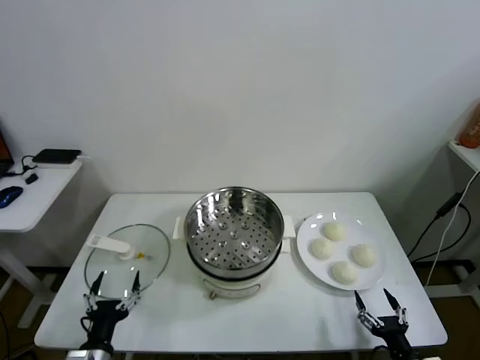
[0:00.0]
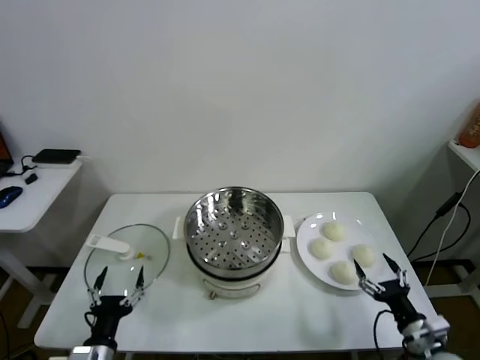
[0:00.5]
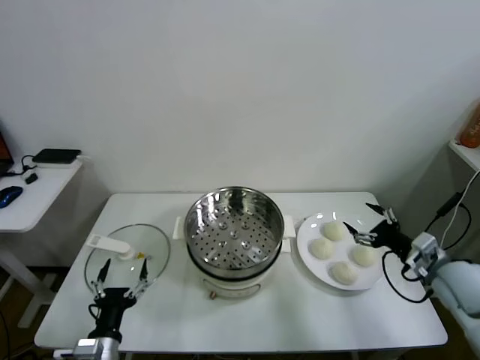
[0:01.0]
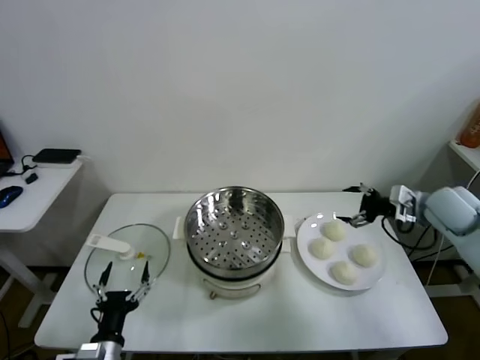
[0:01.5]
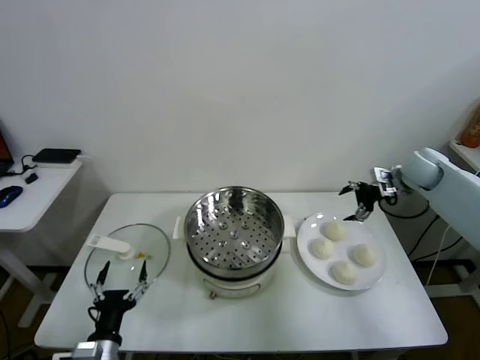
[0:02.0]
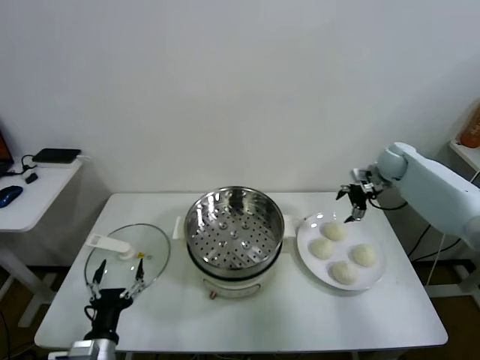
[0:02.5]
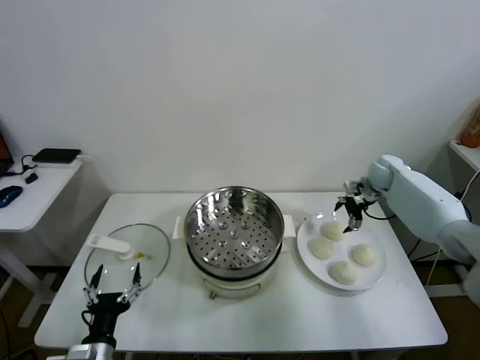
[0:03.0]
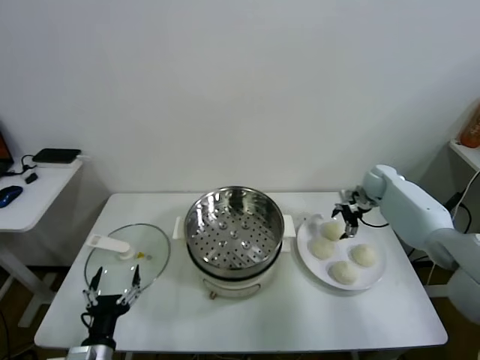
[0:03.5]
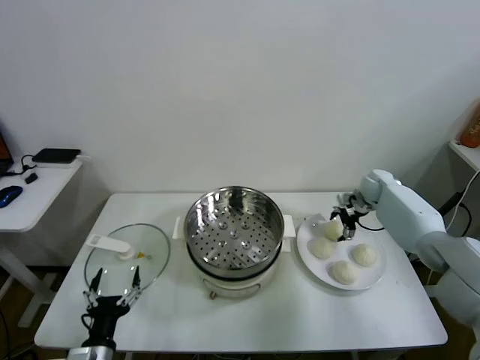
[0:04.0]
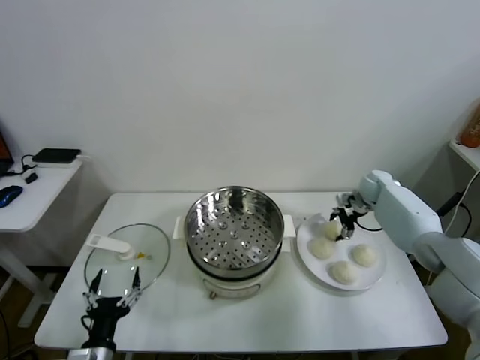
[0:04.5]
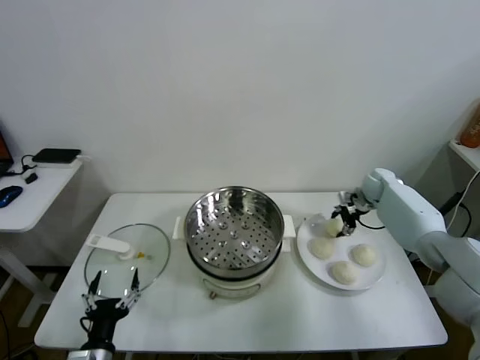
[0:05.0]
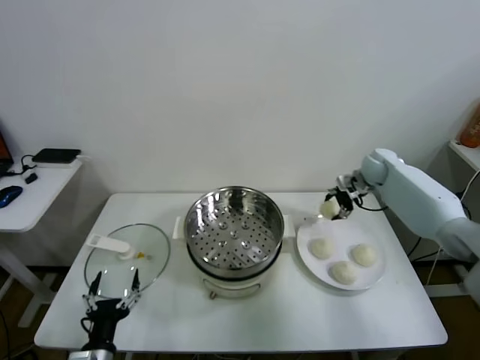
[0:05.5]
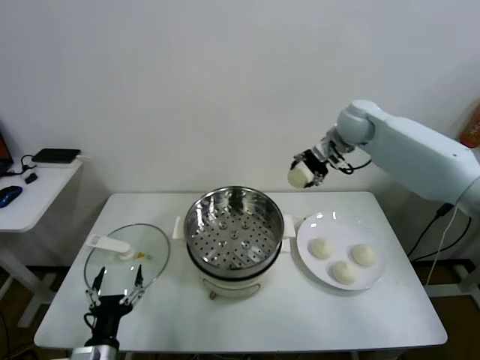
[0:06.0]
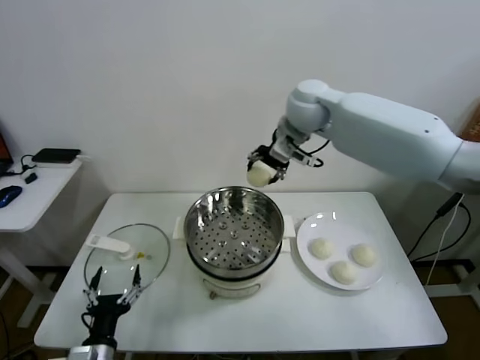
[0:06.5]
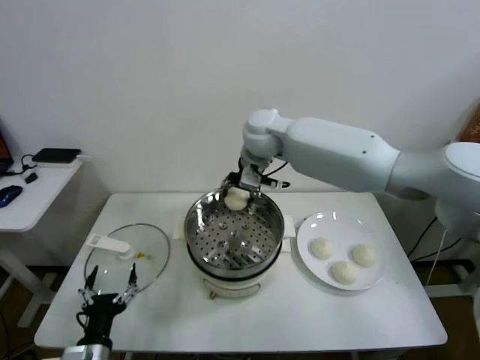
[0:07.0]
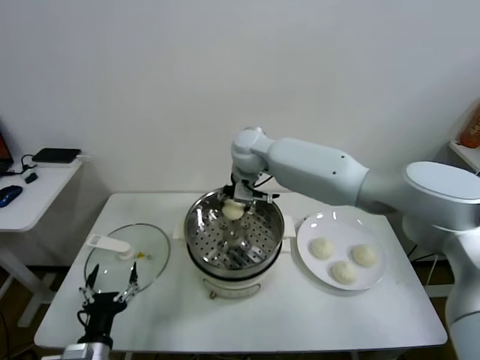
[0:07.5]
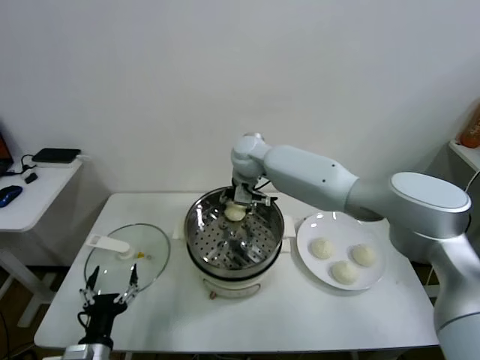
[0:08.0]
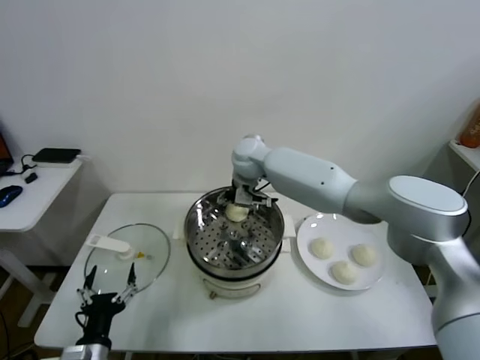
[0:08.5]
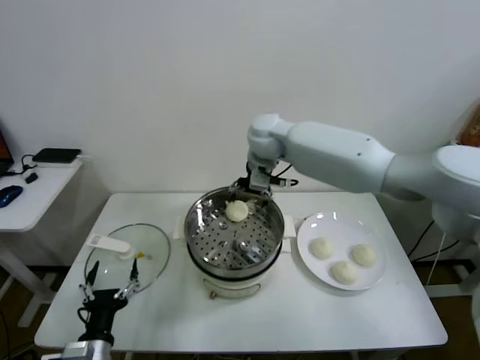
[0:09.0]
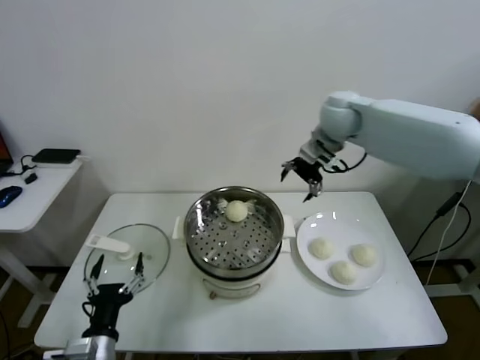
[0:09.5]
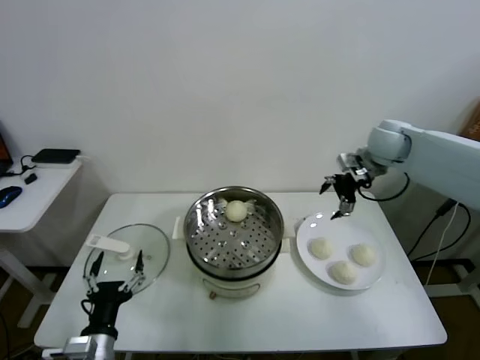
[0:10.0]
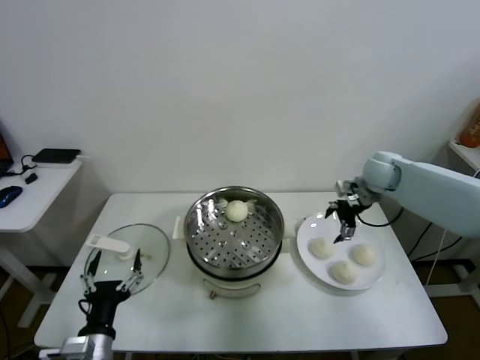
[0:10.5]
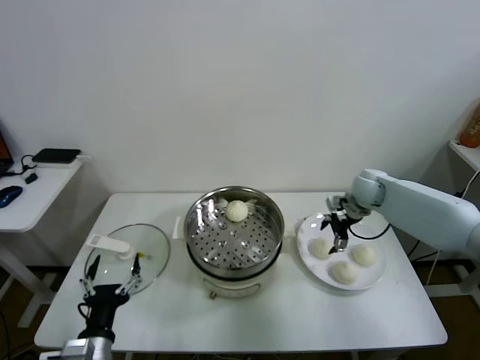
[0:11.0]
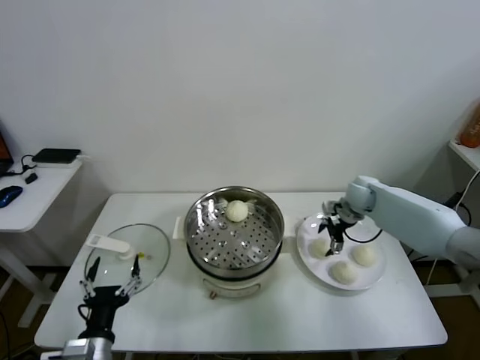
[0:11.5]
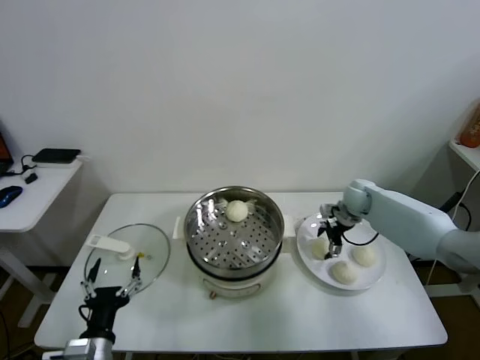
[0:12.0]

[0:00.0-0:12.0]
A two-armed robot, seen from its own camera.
Task of the whole recording: take steamed baozi put them in steamer.
Step, 0:00.0 to 0:04.5: Grasp the baozi in the plate with right gripper.
Step, 0:05.0 to 0:08.5: Place the baozi on the steamer with right gripper.
0:02.0 to 0:04.0: The right gripper travels downward by some 10 cm.
0:04.0 to 0:06.0: The right gripper shifts approximately 30 cm upward and to the left, and closes up.
0:06.0 to 0:08.0: The right gripper travels to the left and downward by about 25 cm.
0:08.0 to 0:10.0: The right gripper is displaced to the right by approximately 30 cm, and opens.
0:10.0 to 0:12.0: The right gripper heads downward, covering about 20 cm.

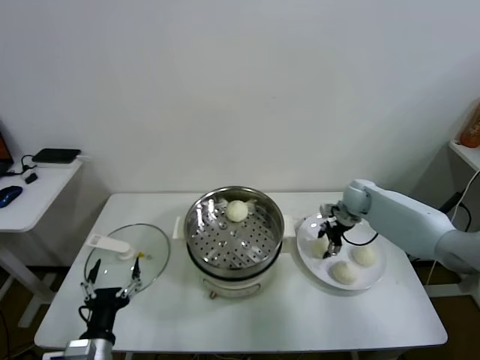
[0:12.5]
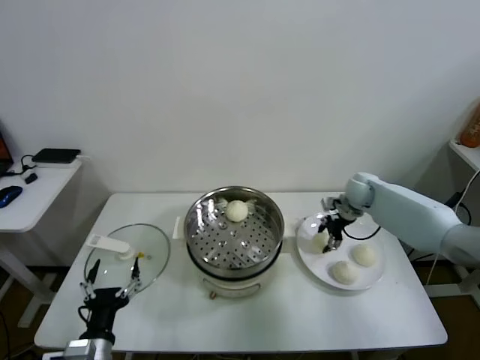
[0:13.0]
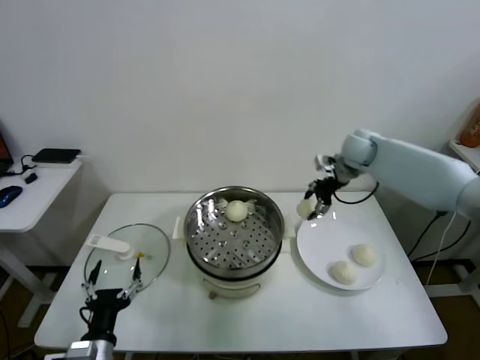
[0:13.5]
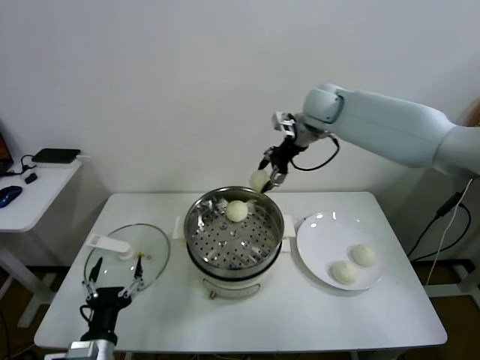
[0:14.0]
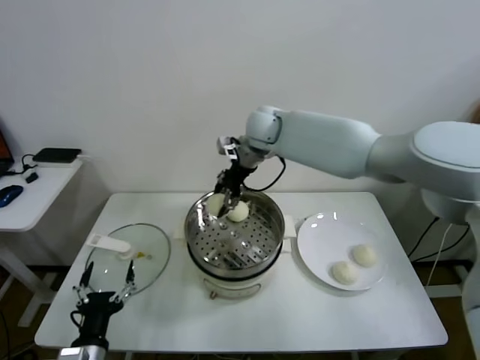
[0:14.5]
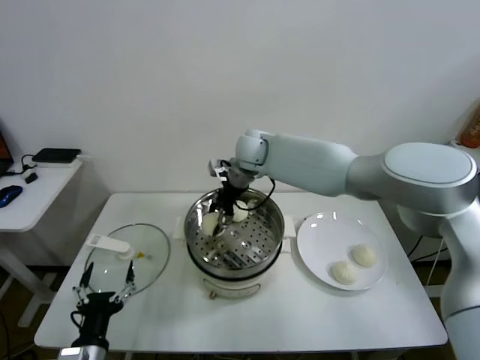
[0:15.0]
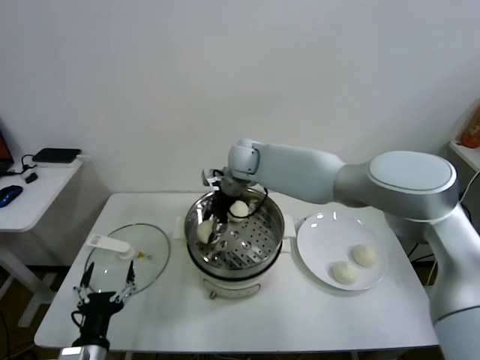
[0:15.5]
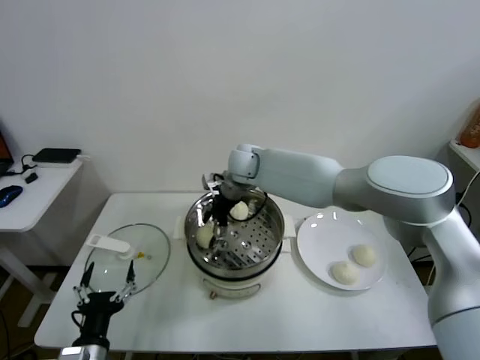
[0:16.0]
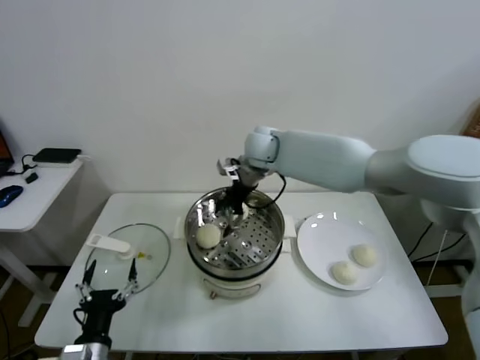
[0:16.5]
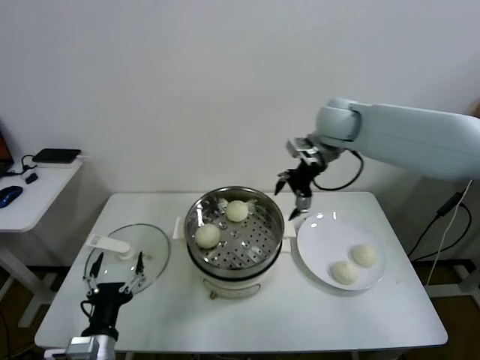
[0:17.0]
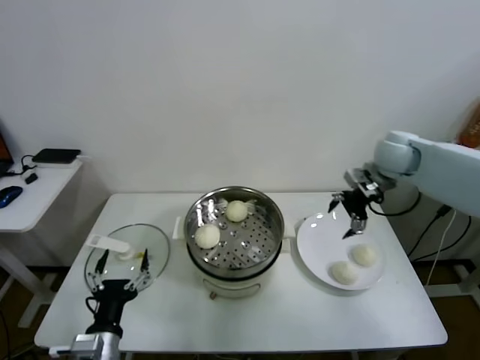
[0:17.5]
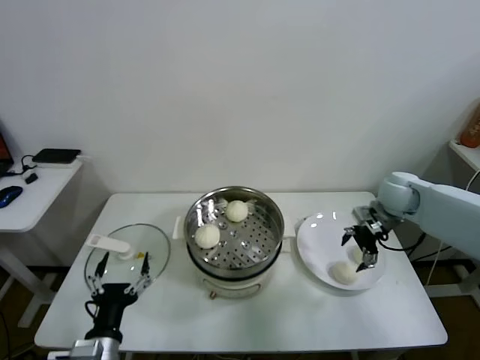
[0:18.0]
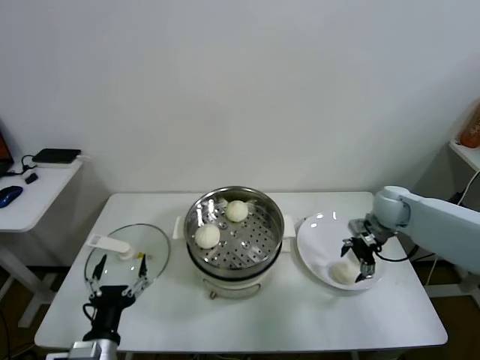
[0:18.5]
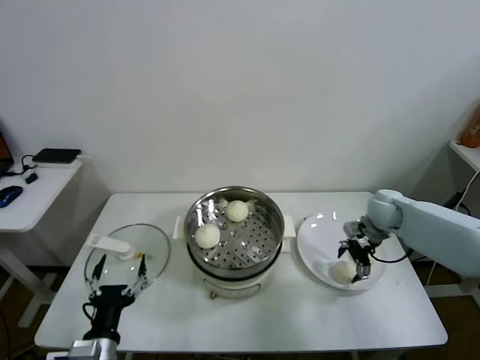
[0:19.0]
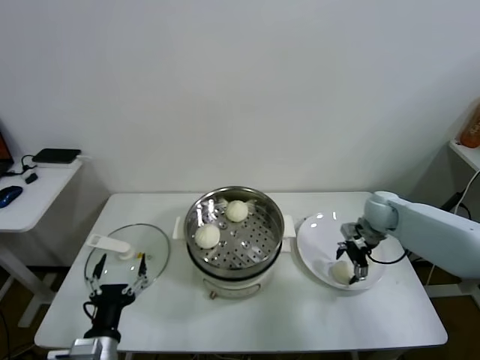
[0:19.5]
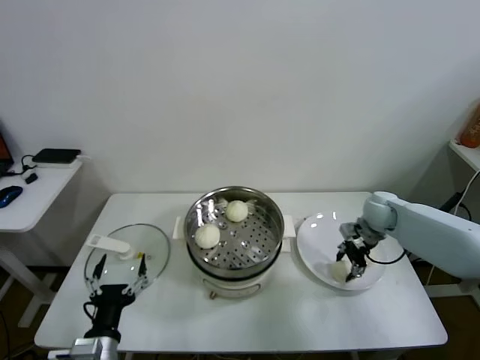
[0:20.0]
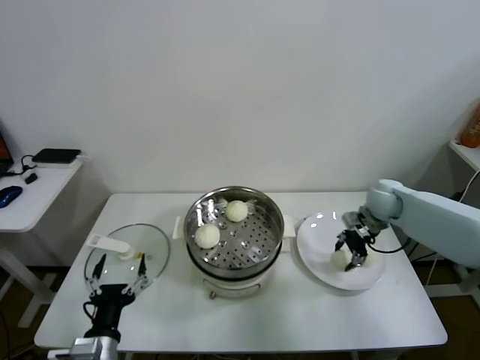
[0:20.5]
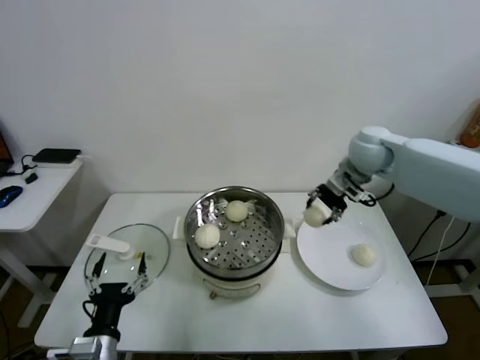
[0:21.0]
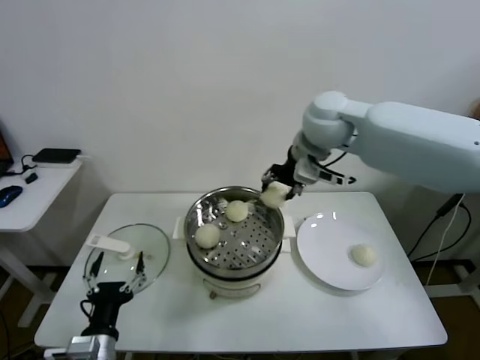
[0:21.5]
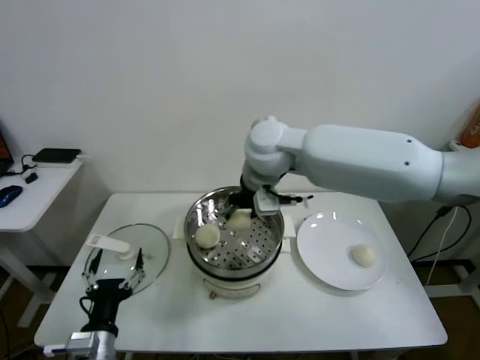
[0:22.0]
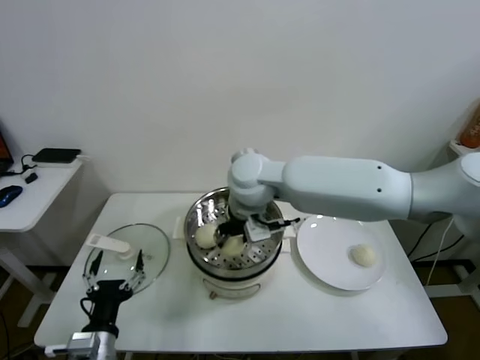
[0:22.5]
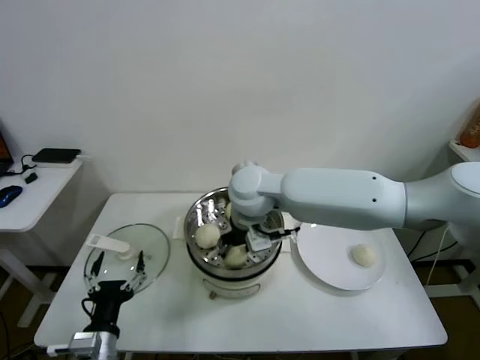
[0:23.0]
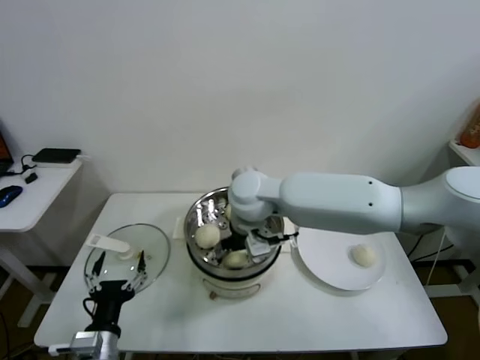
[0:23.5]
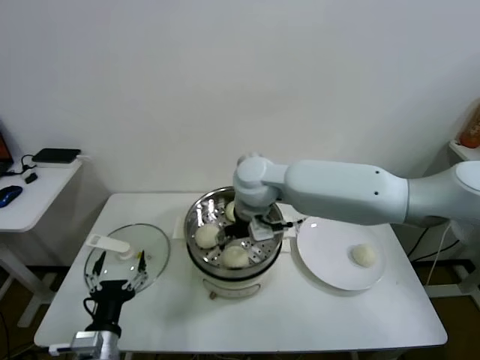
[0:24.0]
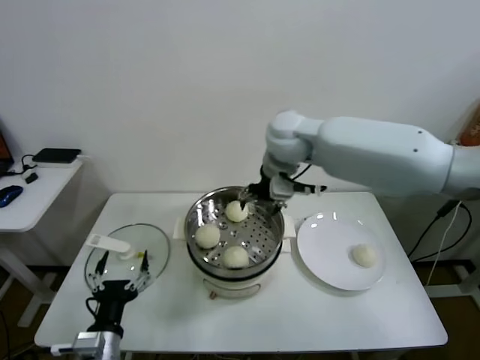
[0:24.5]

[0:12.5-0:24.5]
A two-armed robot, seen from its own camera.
Task of the whole recording: take steamed baozi put them in steamer.
Step, 0:13.0 to 0:16.0: Place the baozi on the steamer with right gripper.
Step, 0:16.5 to 0:20.0: Grasp the baozi in the plate with right gripper.
Step, 0:20.5 to 0:23.5: Place the baozi on the steamer with right gripper.
0:12.5 to 0:14.5: The right gripper travels to the left and upward by approximately 35 cm.
0:14.5 to 0:16.5: The right gripper moves roughly 10 cm downward and comes back, and opens.
0:16.5 to 0:18.5: The right gripper moves to the right and downward, about 35 cm.
0:18.5 to 0:20.5: The right gripper closes.
0:20.5 to 0:22.5: The right gripper travels to the left and upward by roughly 35 cm.
0:22.5 to 0:24.5: The right gripper goes some 10 cm to the right, forward and upward, and opens up.

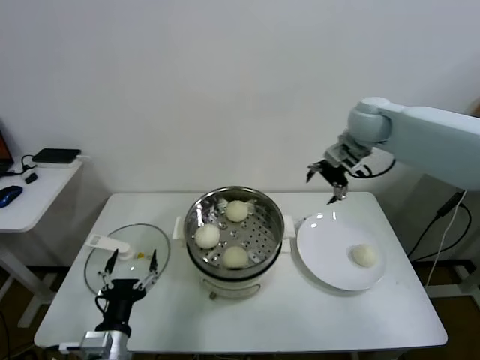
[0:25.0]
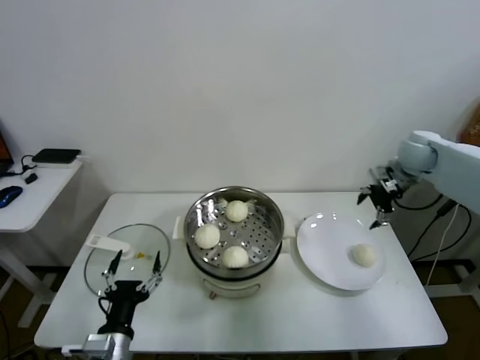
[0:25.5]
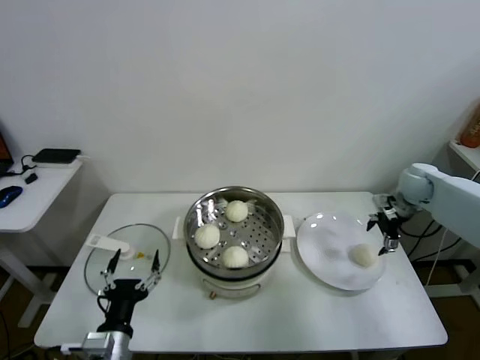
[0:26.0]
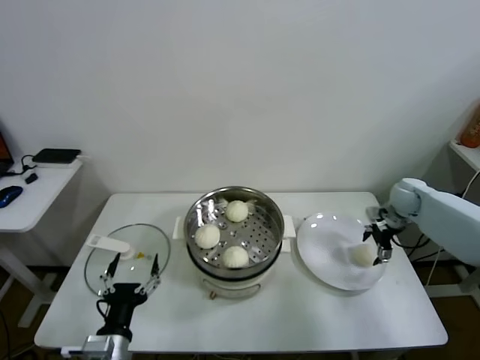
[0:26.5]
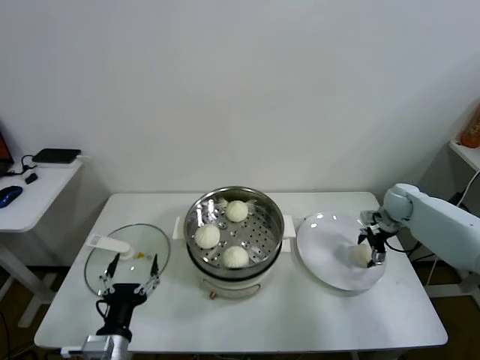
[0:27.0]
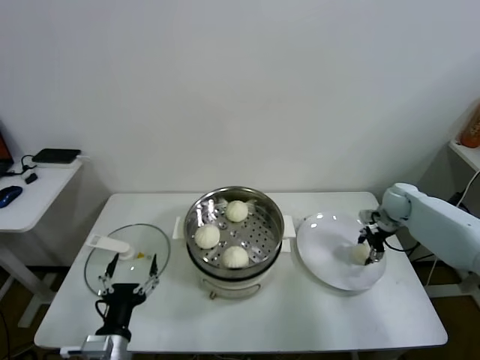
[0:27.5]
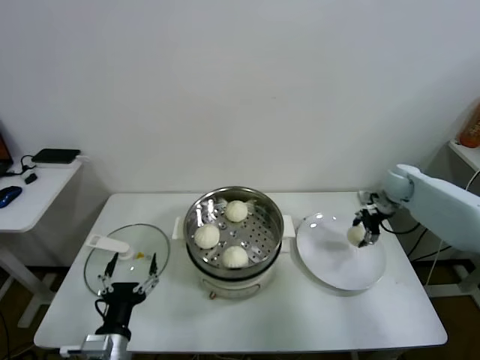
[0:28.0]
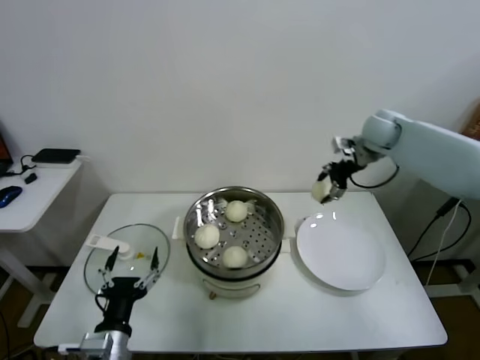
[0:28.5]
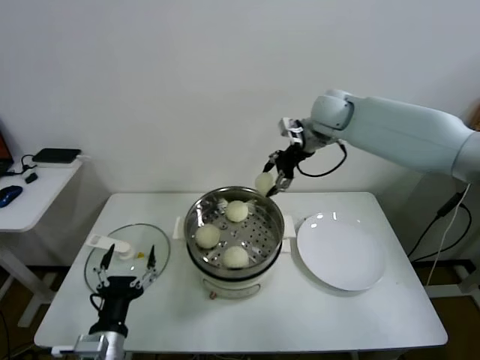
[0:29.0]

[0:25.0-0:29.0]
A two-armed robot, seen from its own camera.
Task of the whole recording: take steamed baozi put them in steamer.
Step, 0:25.0 to 0:27.5: Grasp the baozi in the plate with right gripper.
0:25.0 to 0:27.0: The right gripper shifts roughly 30 cm downward and to the right.
0:27.0 to 0:29.0: The right gripper moves upward and to the left, approximately 35 cm, and closes its fingers.
